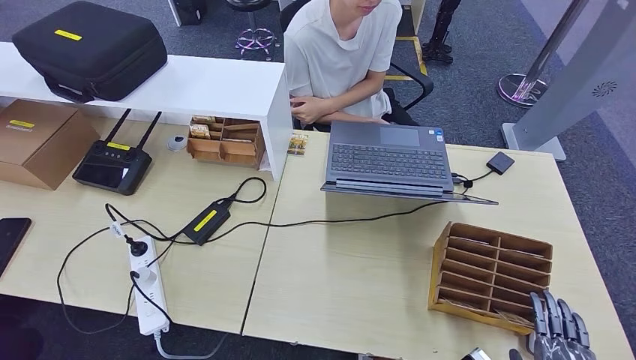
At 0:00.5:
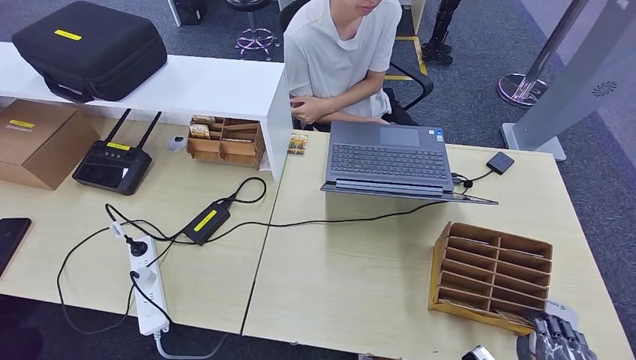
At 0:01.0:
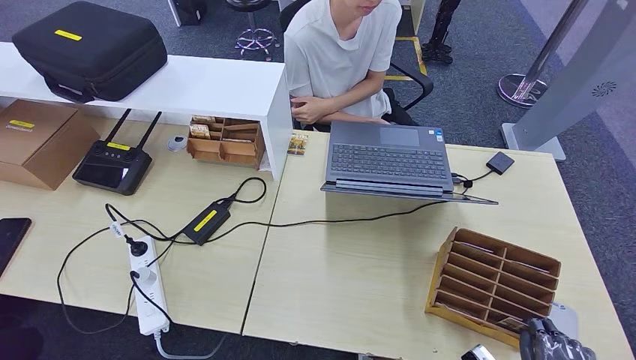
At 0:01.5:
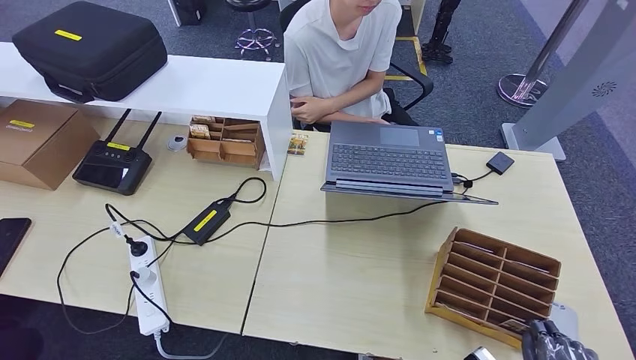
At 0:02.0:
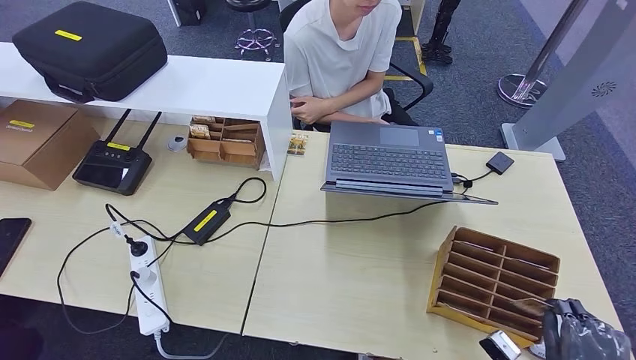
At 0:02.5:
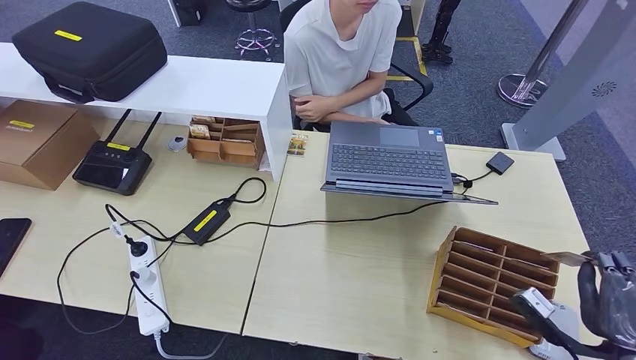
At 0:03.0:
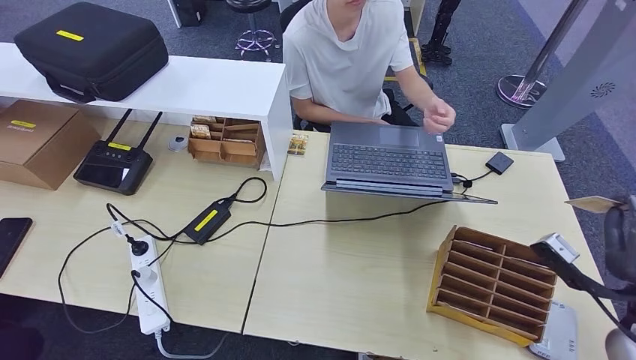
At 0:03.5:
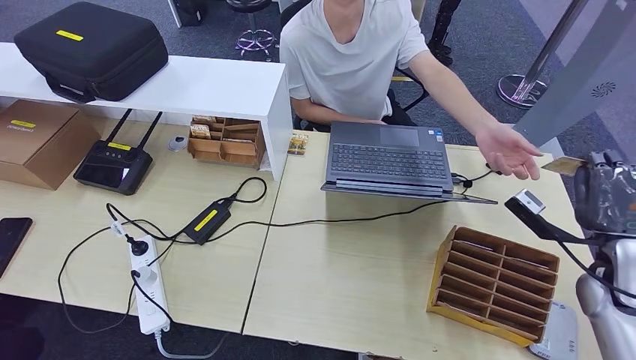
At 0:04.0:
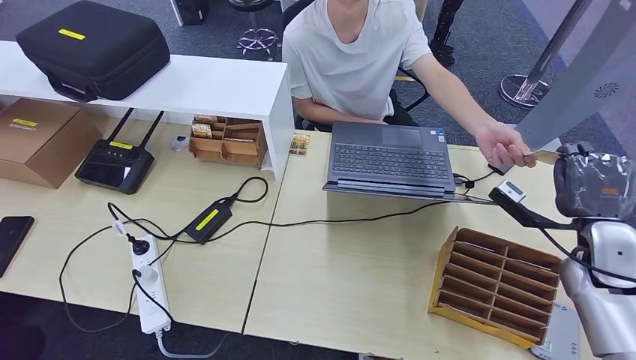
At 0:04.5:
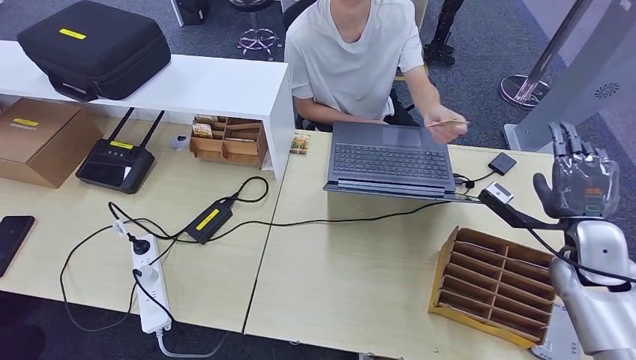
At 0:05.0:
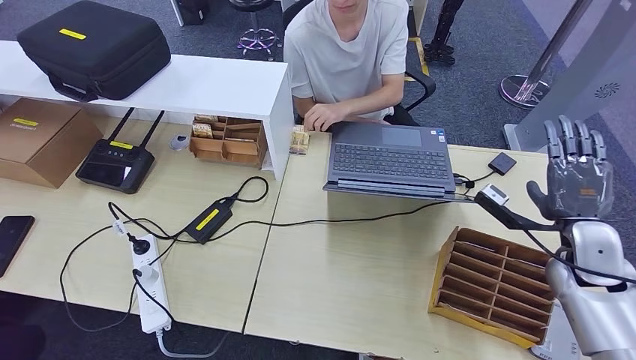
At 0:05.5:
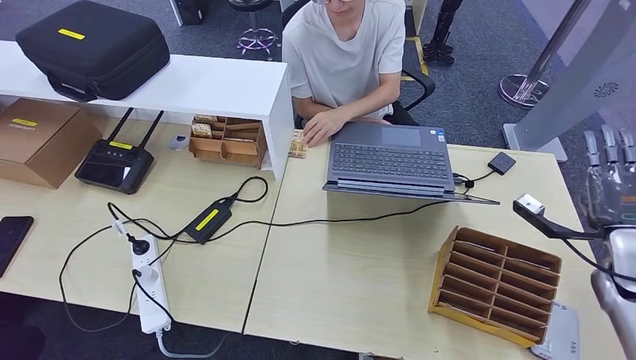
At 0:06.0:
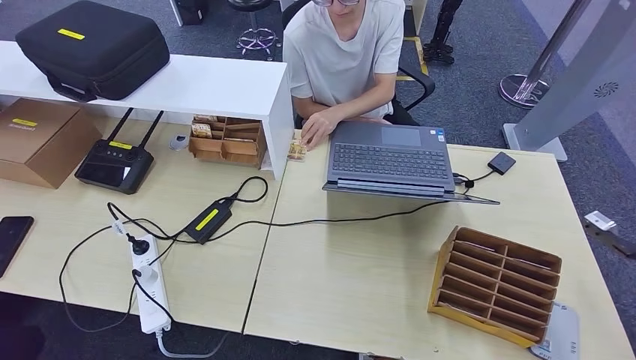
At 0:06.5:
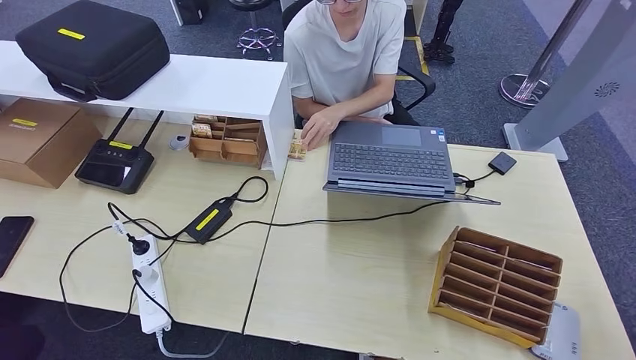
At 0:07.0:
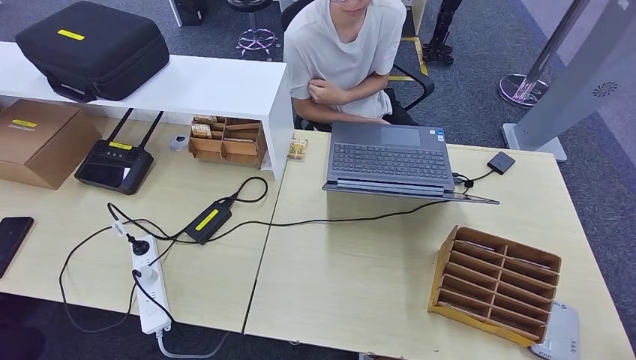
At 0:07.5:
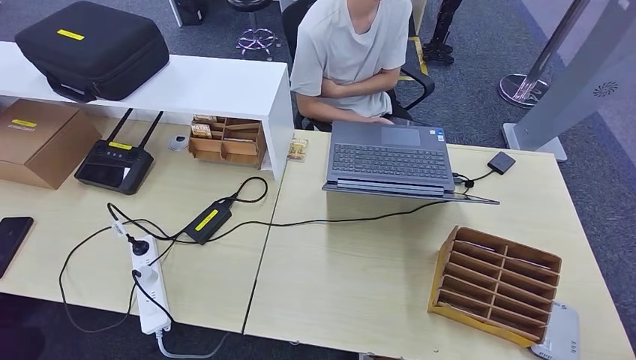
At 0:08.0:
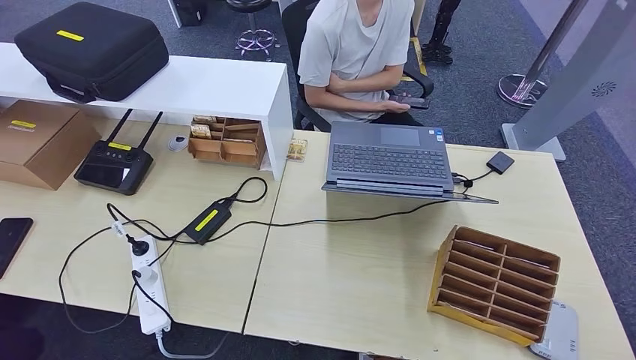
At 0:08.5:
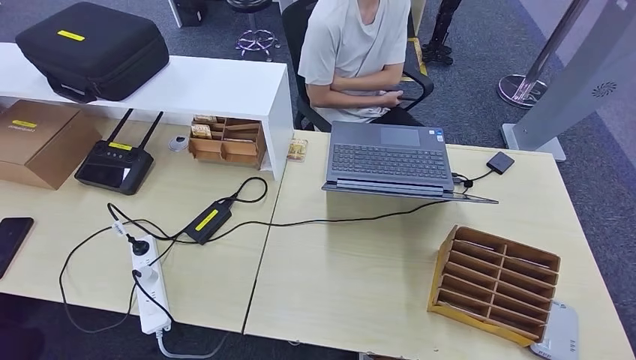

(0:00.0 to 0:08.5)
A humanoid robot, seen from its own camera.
Step, 0:00.0 - 0:03.5: Pick up the room key from the key card box.
Step, 0:04.0 - 0:08.0: Hand the room key to the person.
0:00.0 - 0:02.0: There are only small adjustments of the hands.
0:02.0 - 0:04.0: The right hand travels forward and upward by about 25 cm.
0:04.0 - 0:06.5: The right hand moves to the right and backward, about 25 cm.
0:06.5 - 0:08.5: The right hand shifts approximately 35 cm downward and backward.
